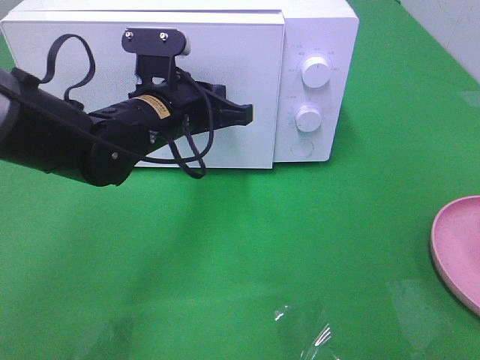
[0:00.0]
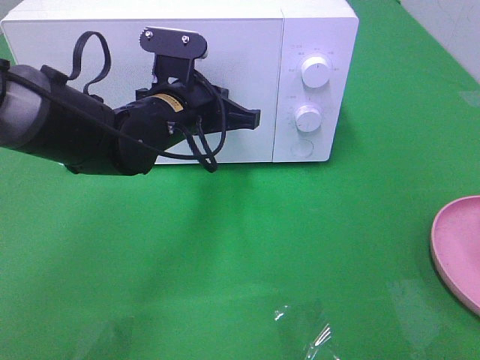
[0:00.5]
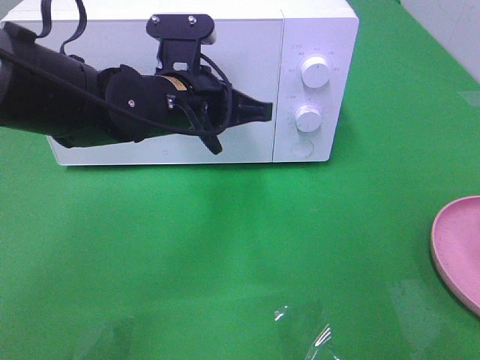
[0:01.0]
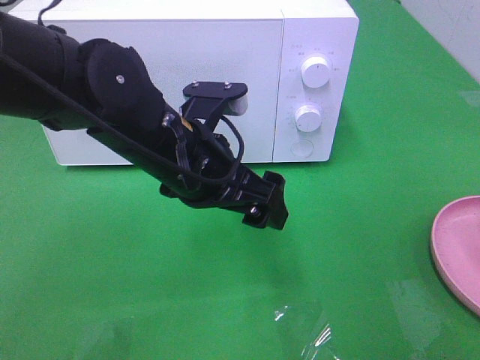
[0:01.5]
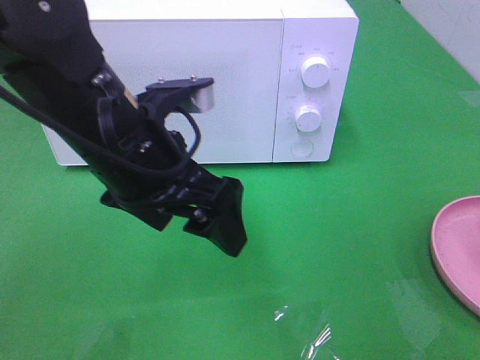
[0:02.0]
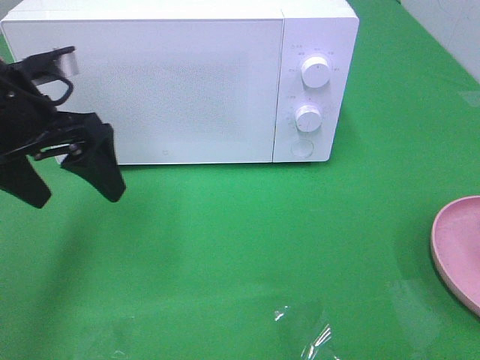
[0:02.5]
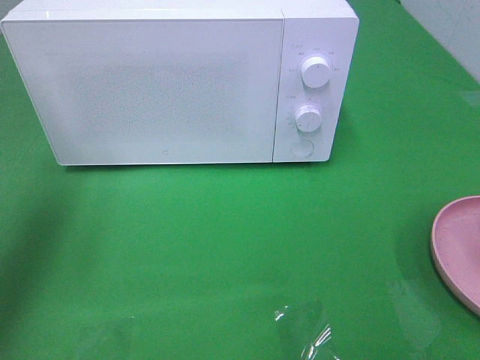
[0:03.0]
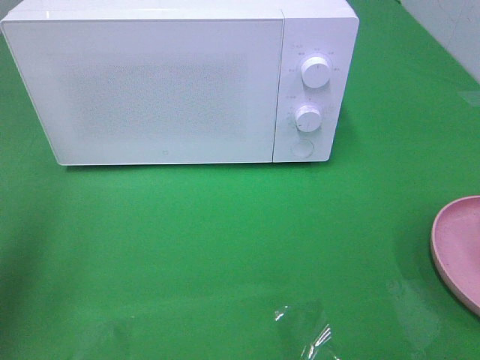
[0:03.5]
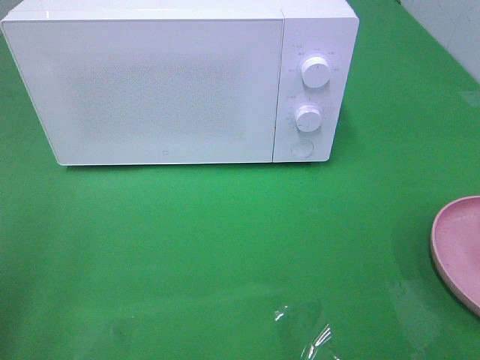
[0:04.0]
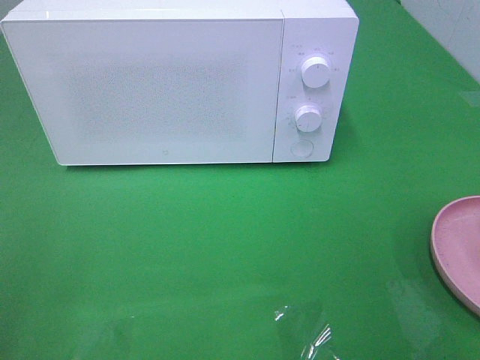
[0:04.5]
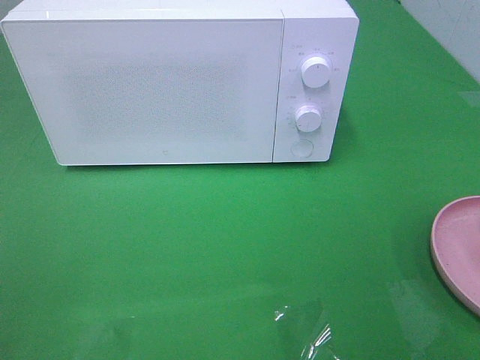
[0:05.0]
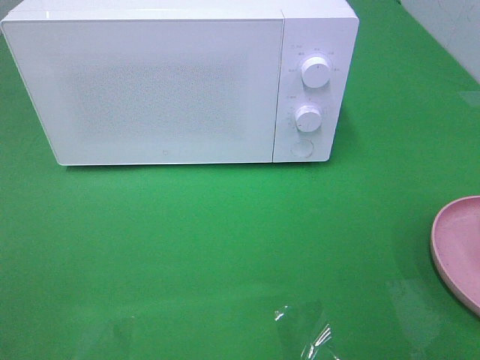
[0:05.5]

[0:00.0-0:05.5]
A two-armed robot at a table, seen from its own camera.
Task of the whole recording: Heat the burger.
0:00.0 to 0:02.0: The left gripper heads backward and upward, covering about 10 cm, and opens its fingers.
0:02.0 to 0:03.5: The left gripper is displaced to the left by roughly 25 cm.
0:03.5 to 0:05.5: The left gripper moves backward, roughly 20 cm.

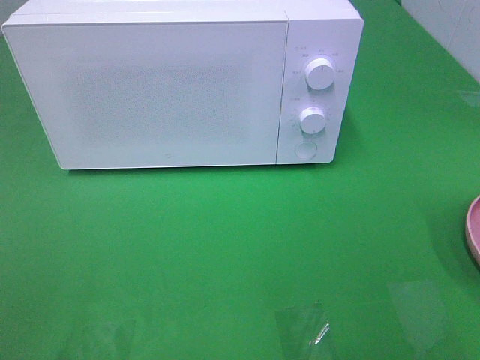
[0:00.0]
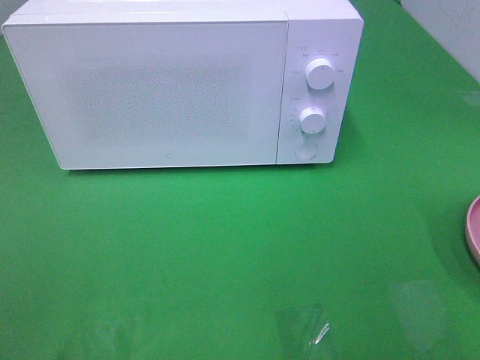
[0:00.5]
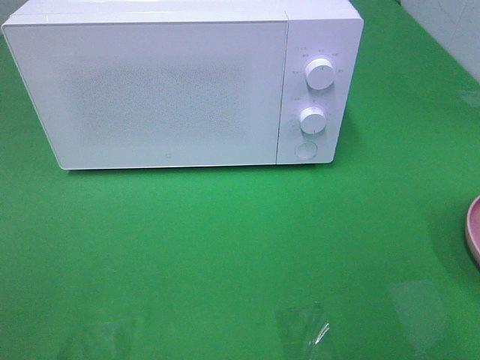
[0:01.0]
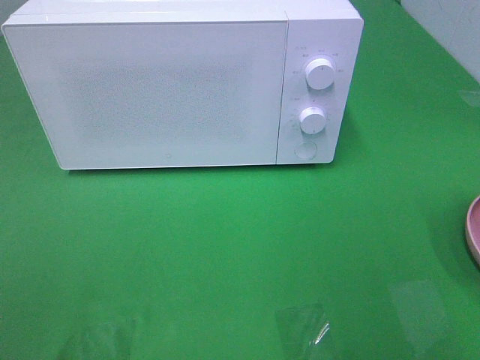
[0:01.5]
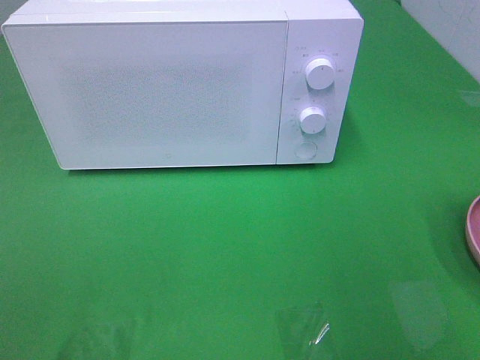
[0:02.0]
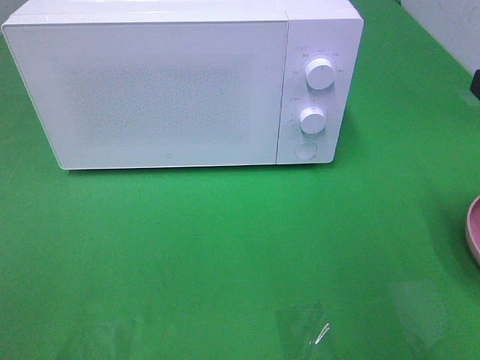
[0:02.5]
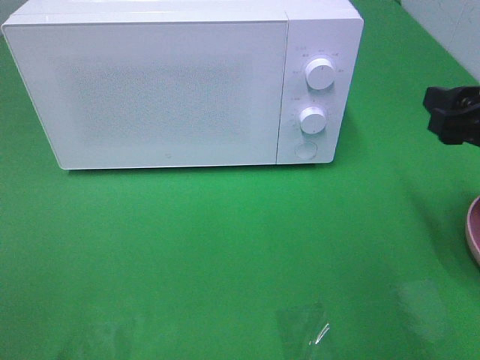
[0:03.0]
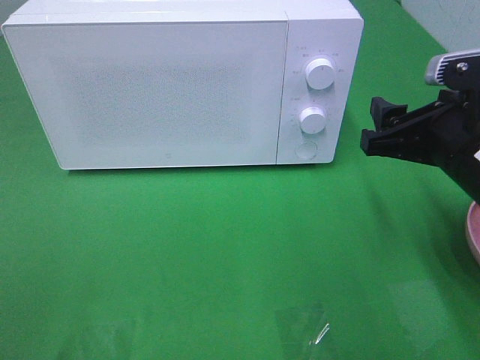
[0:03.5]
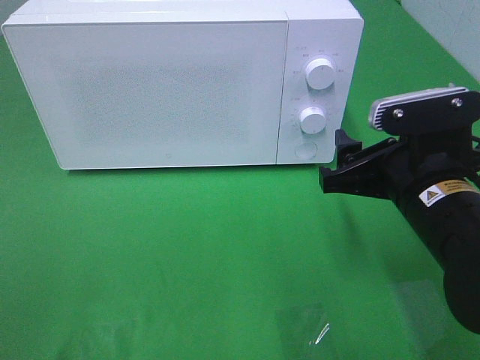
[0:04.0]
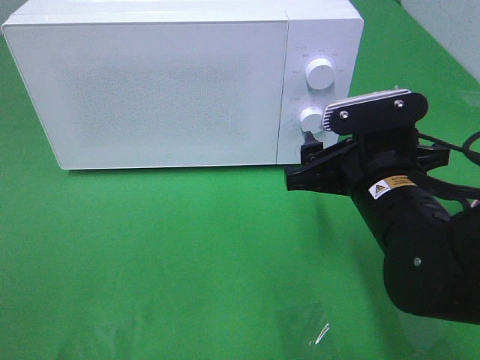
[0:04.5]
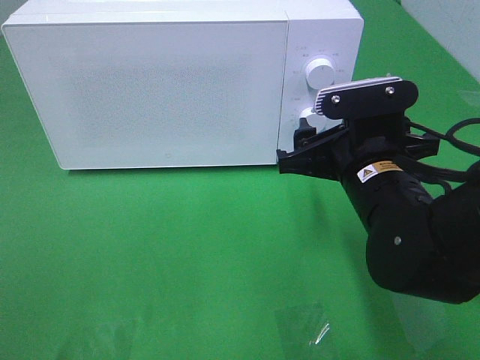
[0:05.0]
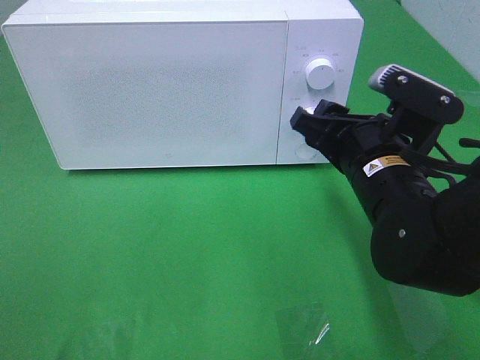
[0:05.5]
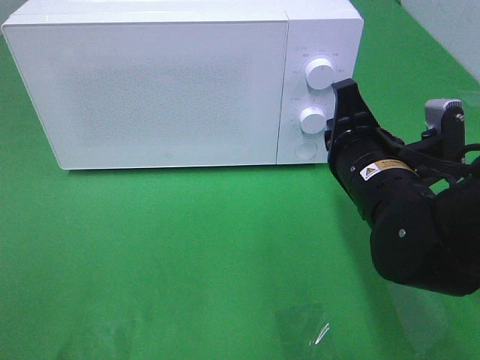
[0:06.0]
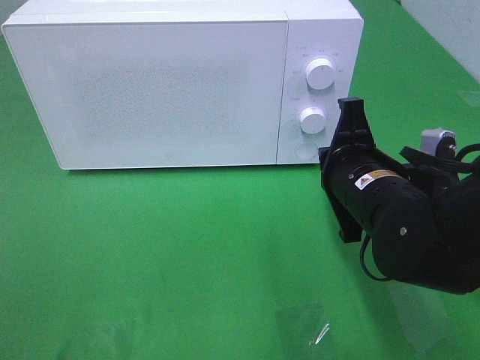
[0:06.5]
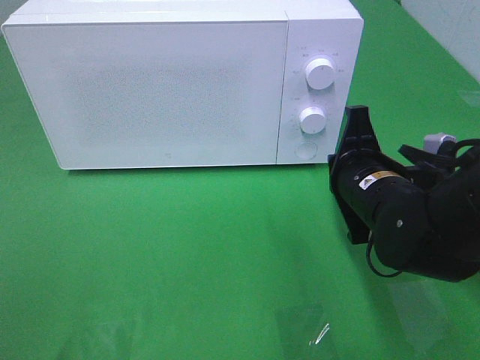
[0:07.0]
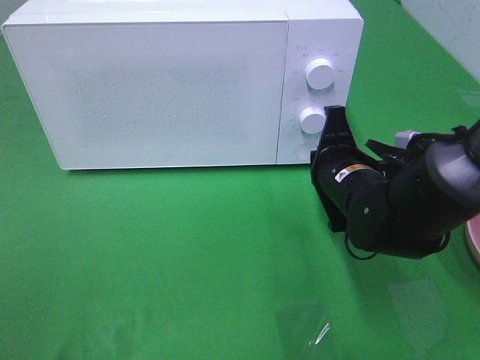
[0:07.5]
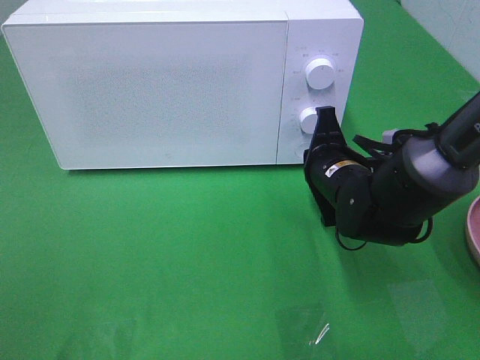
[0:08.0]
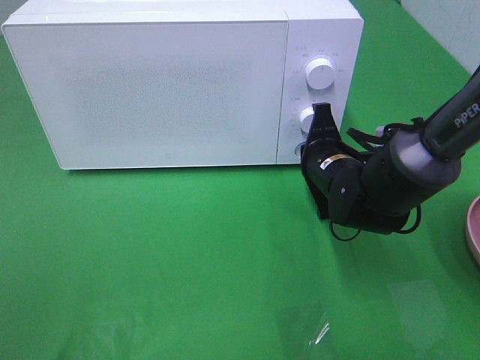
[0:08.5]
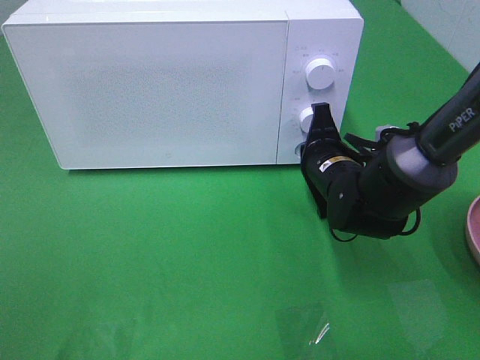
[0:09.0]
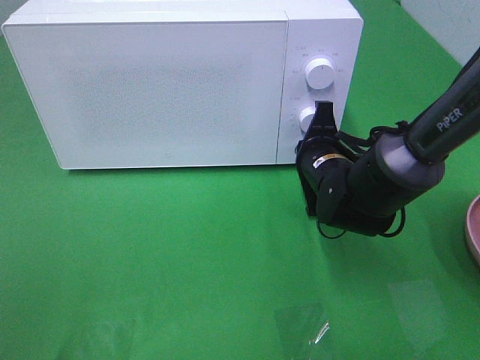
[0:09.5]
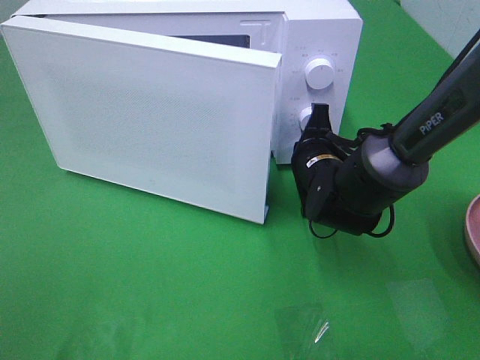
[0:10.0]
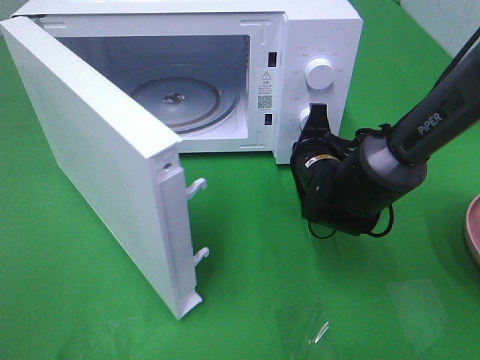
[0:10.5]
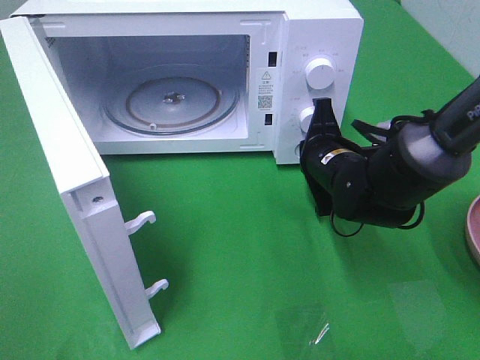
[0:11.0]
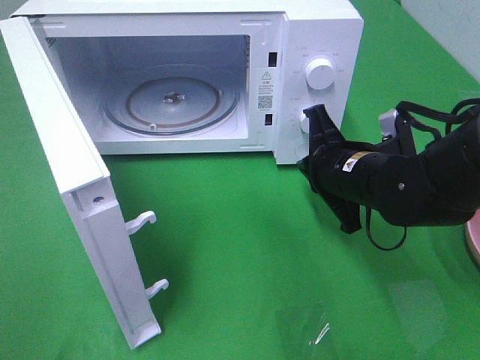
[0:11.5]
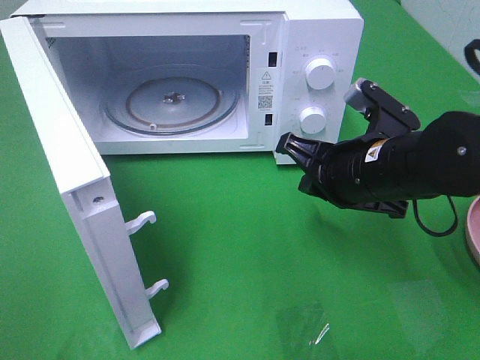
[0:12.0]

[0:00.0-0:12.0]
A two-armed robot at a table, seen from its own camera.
Task of the whole recording: Heat the burger.
Step, 0:00.0 to 0:11.0: Right hand: press the switch.
0:02.0 to 0:04.0: The right gripper goes about 20 cm downward and to the left.
0:04.0 to 0:06.0: The right gripper shifts by approximately 5 cm, and closes up.
0:06.0 to 0:08.0: The right gripper shifts some 10 cm forward and downward.
0:08.0 to 0:10.0: The grippers make only small movements.
0:10.0 to 0:12.0: The right gripper moves backward and upward, approximately 15 cm.

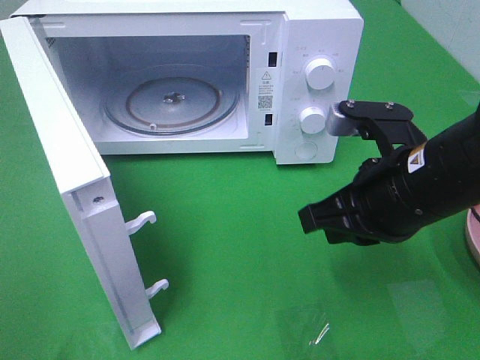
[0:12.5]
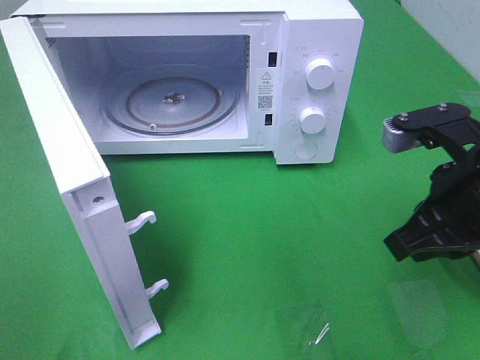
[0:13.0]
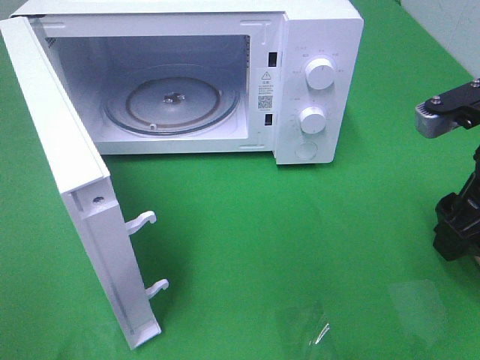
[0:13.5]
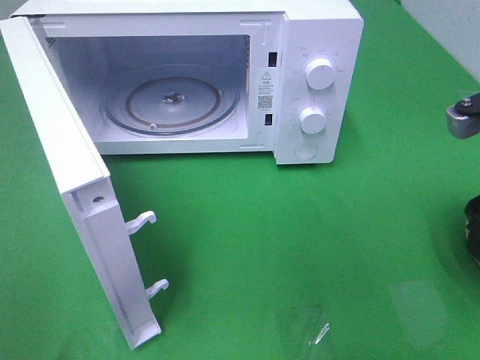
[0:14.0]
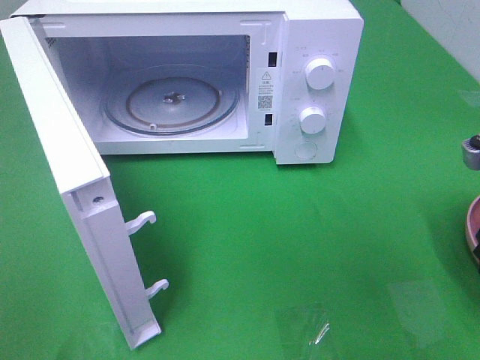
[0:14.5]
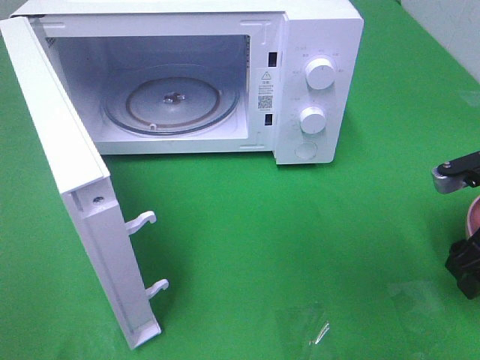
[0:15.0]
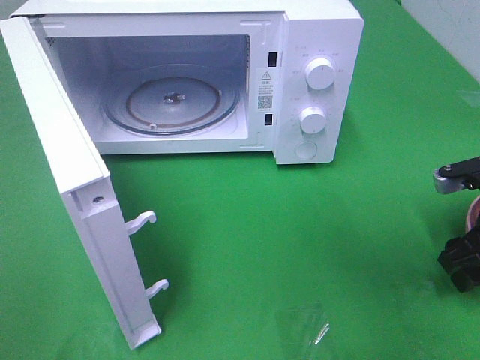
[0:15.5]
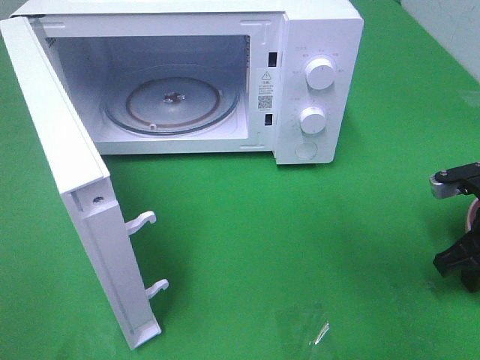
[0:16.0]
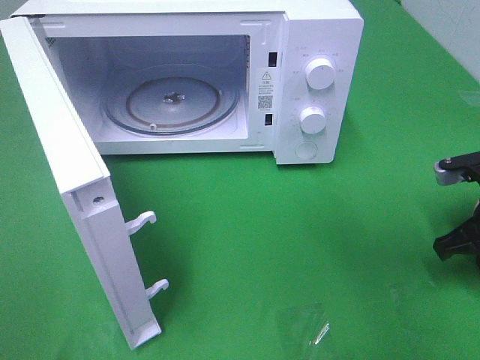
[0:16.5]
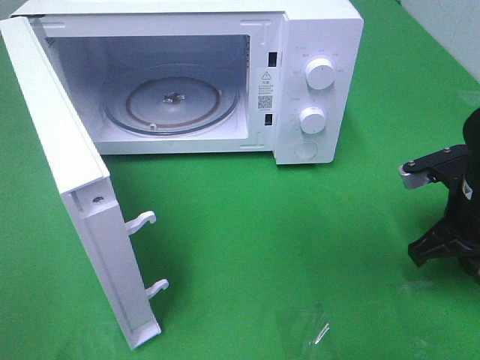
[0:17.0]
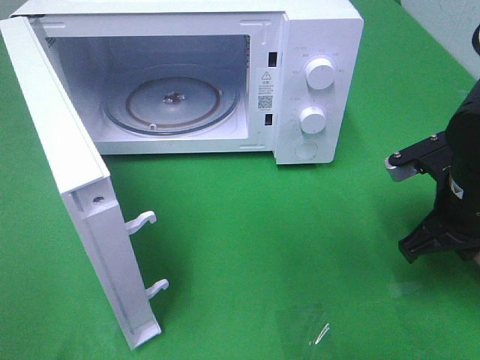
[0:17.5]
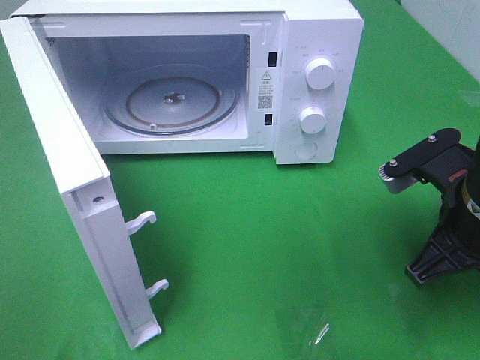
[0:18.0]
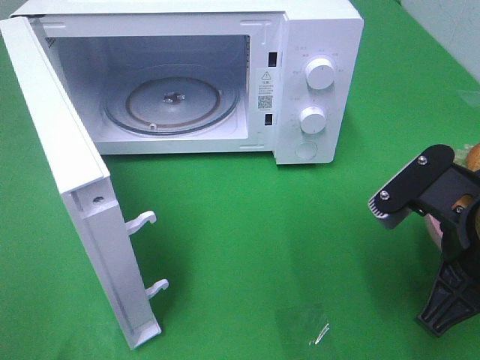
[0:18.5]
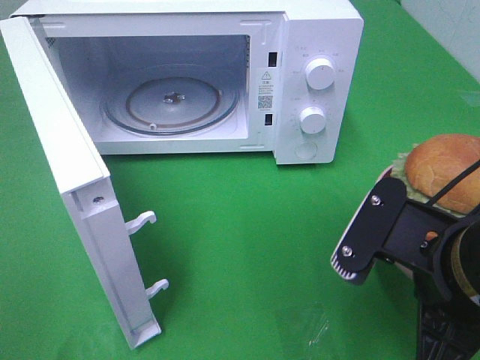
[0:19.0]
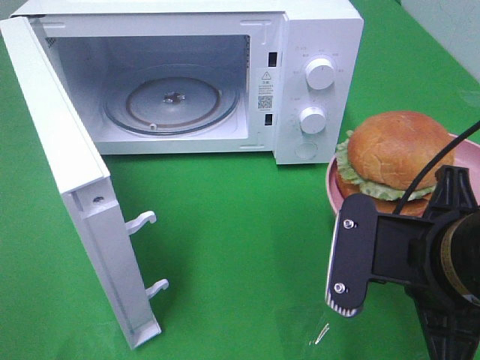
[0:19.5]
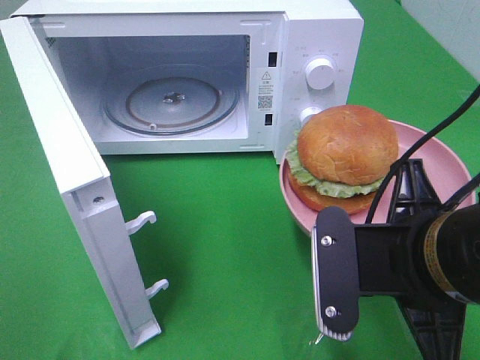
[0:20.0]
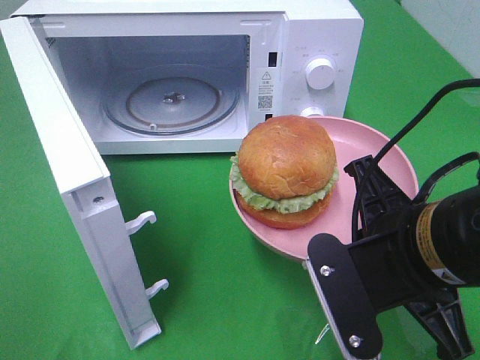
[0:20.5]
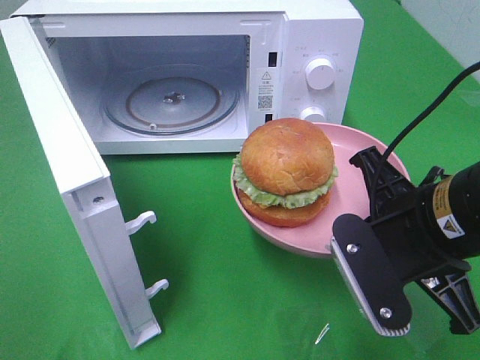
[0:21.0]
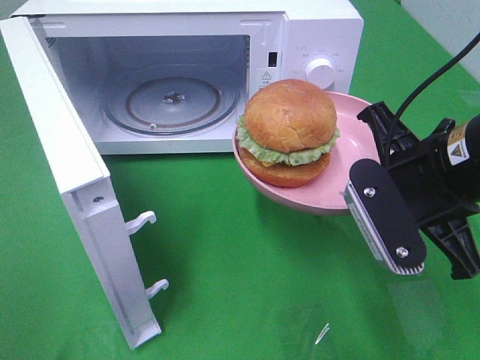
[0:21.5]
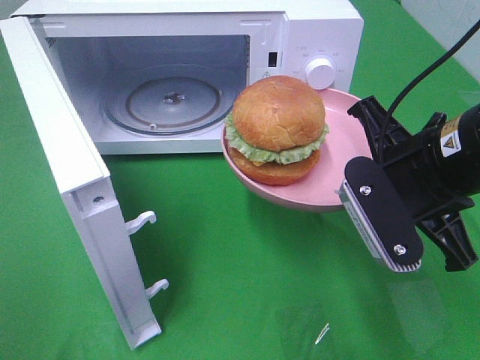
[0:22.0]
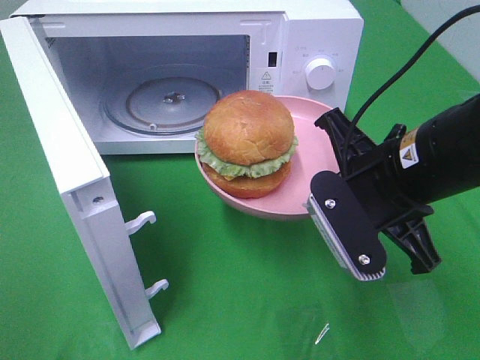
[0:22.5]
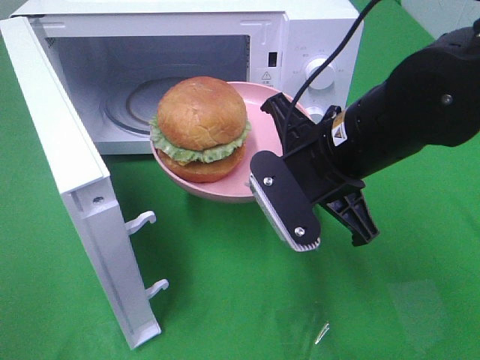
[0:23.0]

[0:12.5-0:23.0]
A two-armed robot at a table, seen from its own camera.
Task of the whole recording: Heat the burger.
Step, 0:12.5 to 0:16.0: Right hand: grab the plate with the hamburger.
0:12.5 to 0:14.5: The right gripper goes approximately 15 cm to the right, and opens up.
0:14.5 to 0:16.5: The right gripper is displaced downward and forward by some 10 cm, and closes up.
0:16.5 to 0:19.0: The right gripper goes approximately 20 cm to the left, backward and upward.
0:21.0 to 0:23.0: The right gripper goes about 10 cm forward and to the left.
